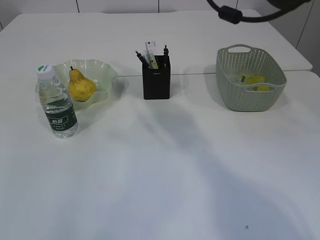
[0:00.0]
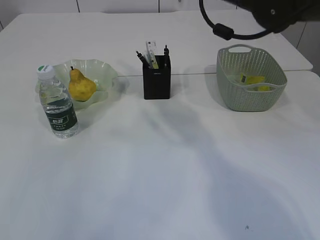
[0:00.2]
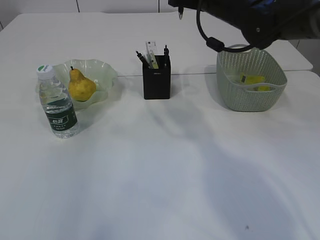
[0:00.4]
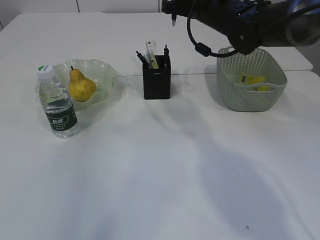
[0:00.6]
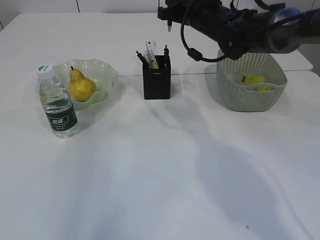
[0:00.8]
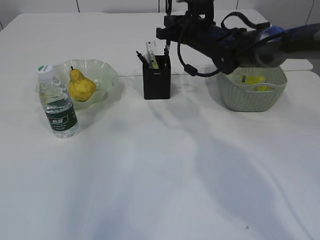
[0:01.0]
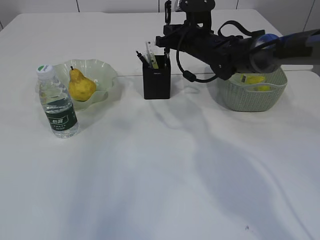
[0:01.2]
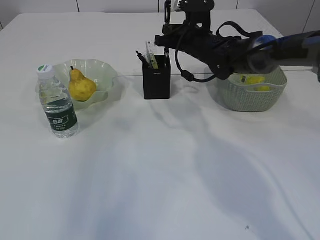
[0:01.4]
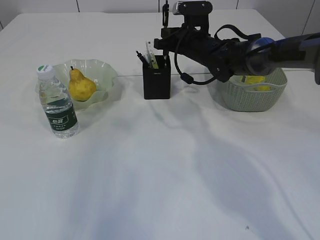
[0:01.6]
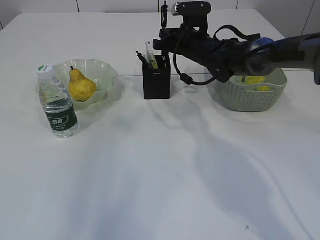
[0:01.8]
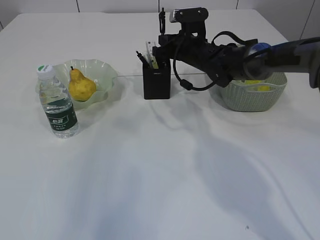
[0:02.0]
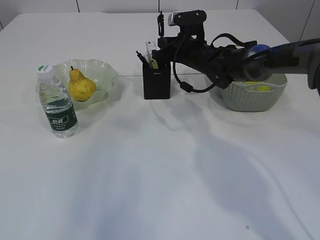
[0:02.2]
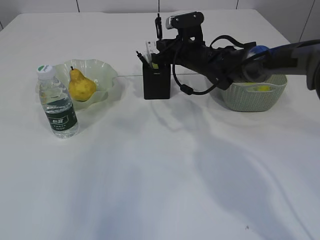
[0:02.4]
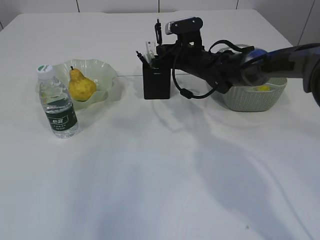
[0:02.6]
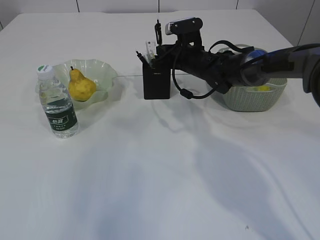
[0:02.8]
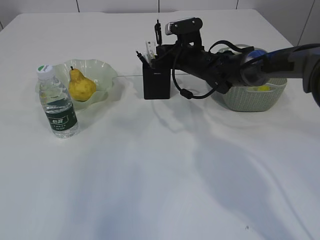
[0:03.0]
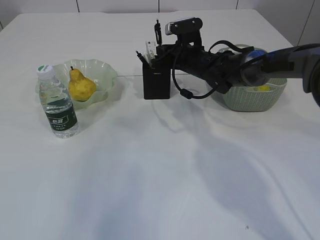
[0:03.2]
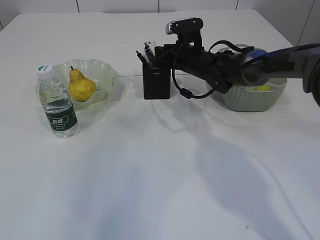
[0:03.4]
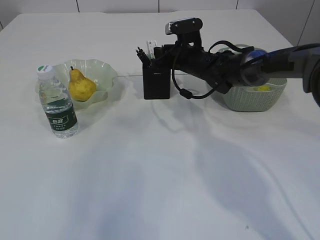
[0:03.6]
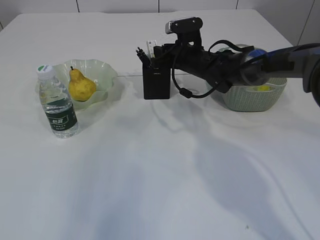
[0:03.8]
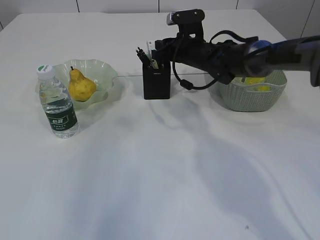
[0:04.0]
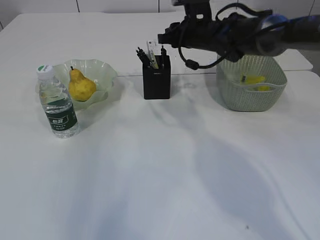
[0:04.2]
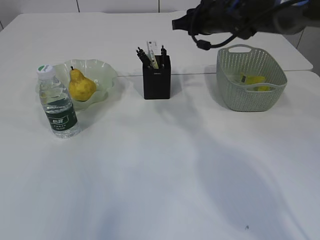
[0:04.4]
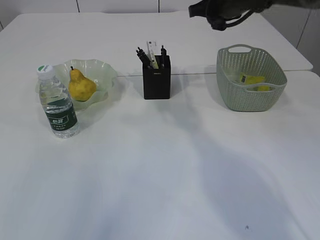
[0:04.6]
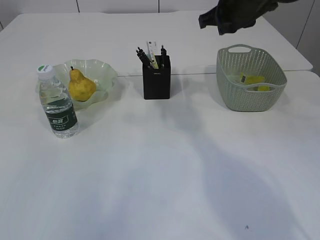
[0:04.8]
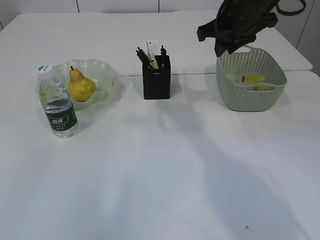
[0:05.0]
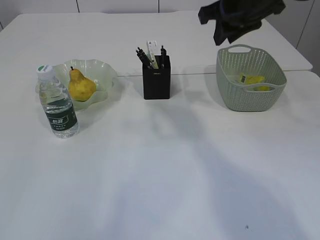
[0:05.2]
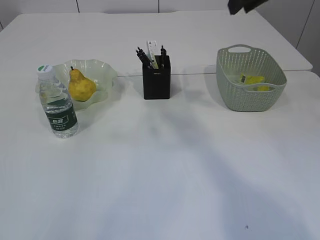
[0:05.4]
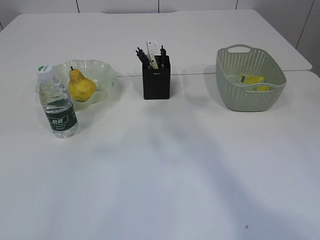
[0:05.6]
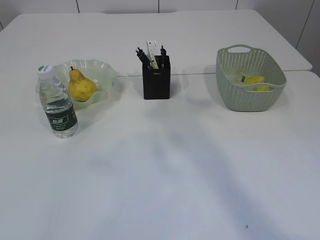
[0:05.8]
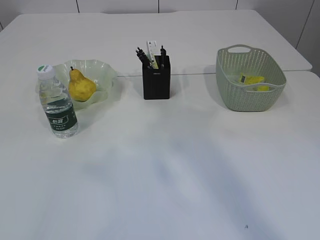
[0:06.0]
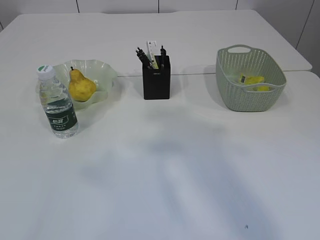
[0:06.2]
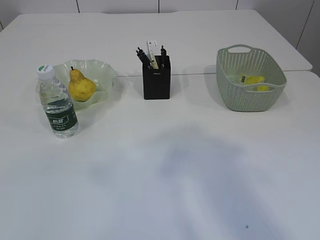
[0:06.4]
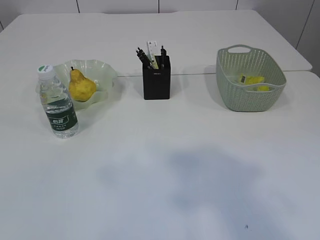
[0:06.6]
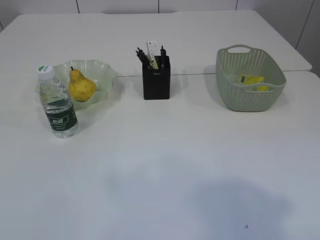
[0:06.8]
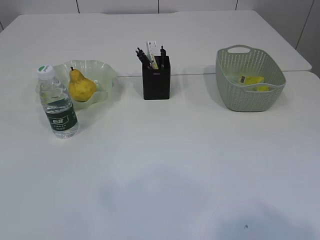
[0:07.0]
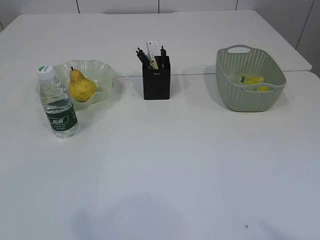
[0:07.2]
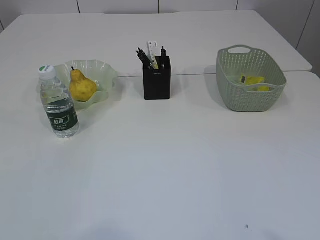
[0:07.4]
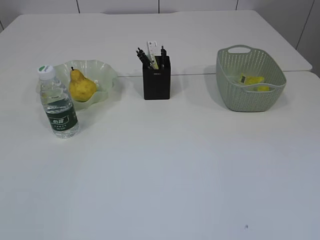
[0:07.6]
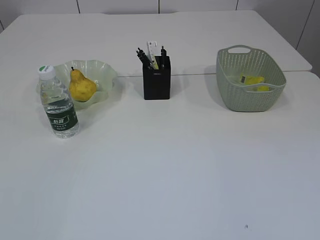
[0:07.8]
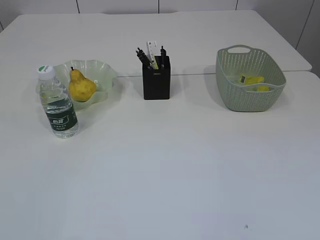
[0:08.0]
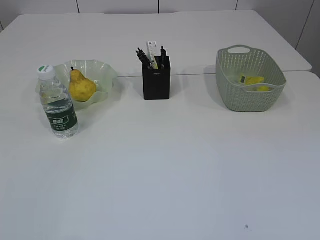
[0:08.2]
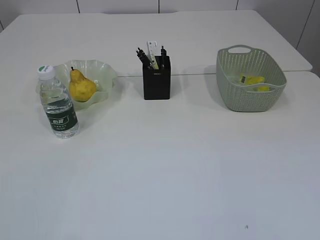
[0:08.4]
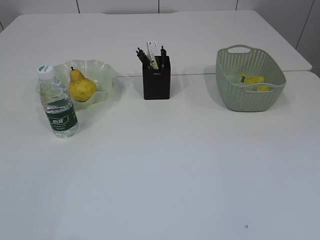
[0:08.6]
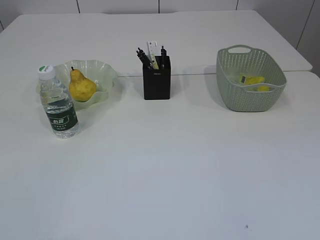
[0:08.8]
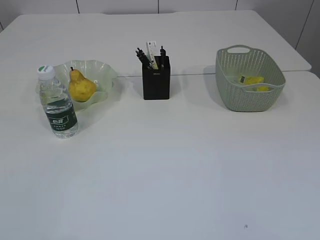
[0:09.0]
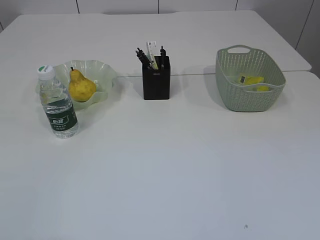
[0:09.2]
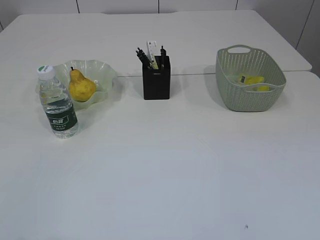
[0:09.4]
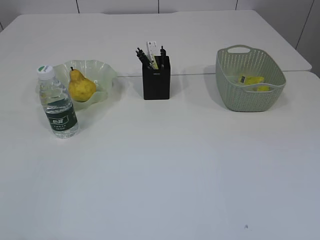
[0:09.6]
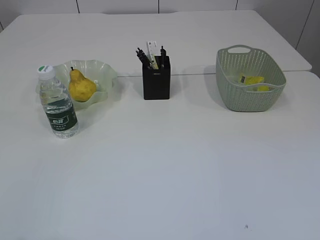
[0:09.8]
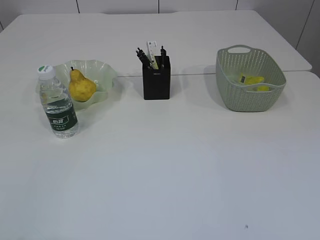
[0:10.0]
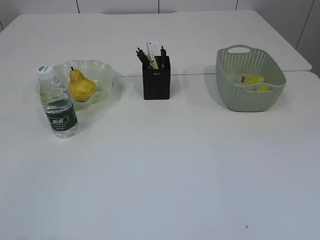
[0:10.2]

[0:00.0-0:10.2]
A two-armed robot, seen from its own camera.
Step, 0:00.0 to 0:04.4: Place the pen into the pen holder.
0:00.0 to 0:01.4: The right gripper travels downward and forward by approximately 20 cm, while the left gripper moves roughly 5 cm.
0:01.4 to 0:03.0: The grippers make only small movements.
0:03.0 to 0:04.4: The right gripper moves upward, about 10 cm, and opens up.
0:04.4 to 0:05.8: The right gripper moves backward and upward, approximately 30 cm; the left gripper shifts some 10 cm backward.
